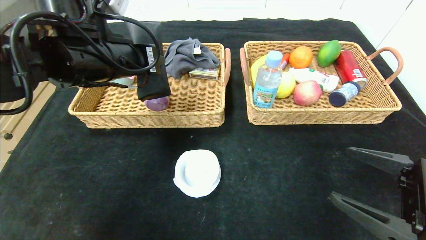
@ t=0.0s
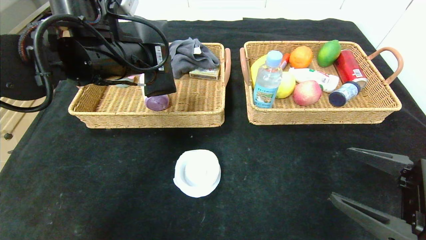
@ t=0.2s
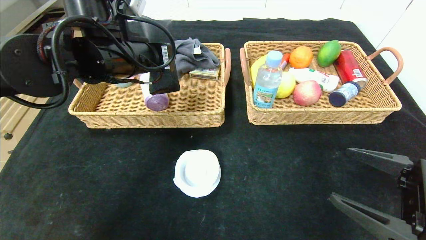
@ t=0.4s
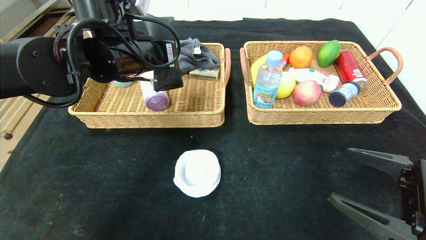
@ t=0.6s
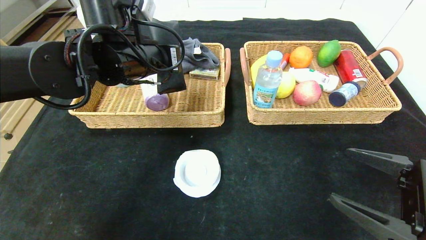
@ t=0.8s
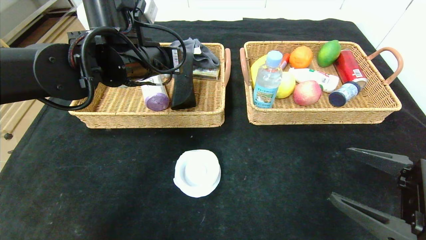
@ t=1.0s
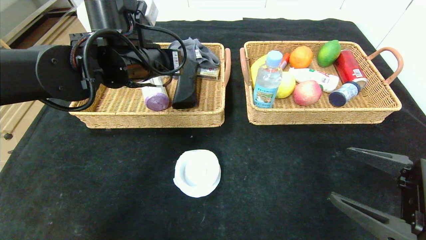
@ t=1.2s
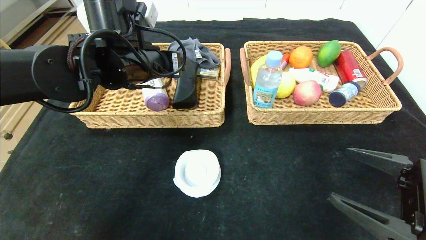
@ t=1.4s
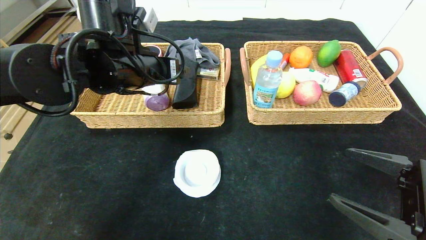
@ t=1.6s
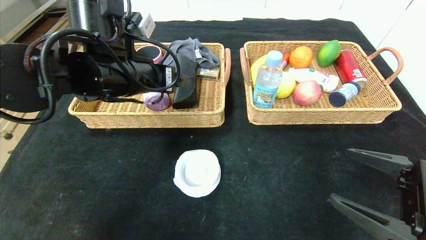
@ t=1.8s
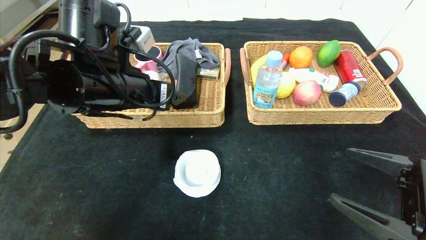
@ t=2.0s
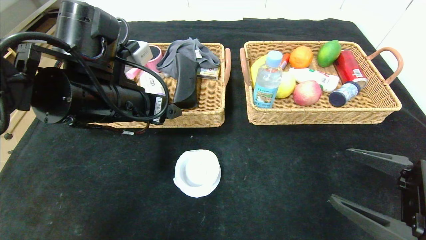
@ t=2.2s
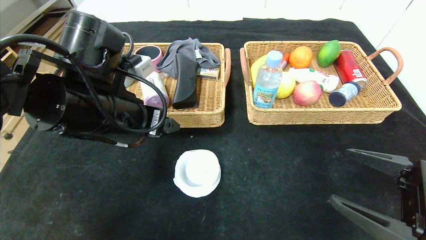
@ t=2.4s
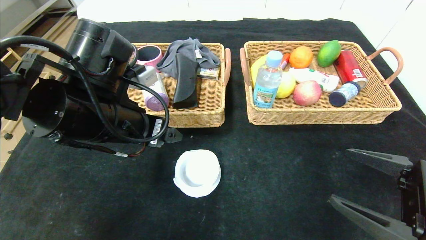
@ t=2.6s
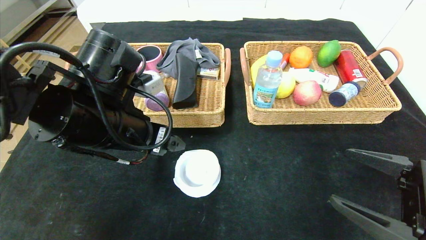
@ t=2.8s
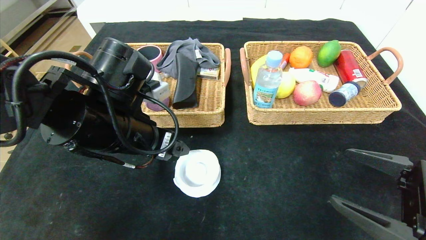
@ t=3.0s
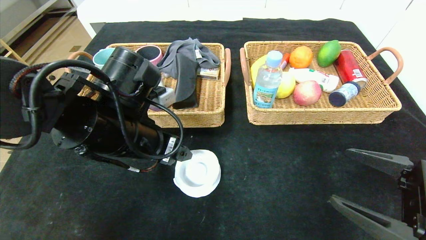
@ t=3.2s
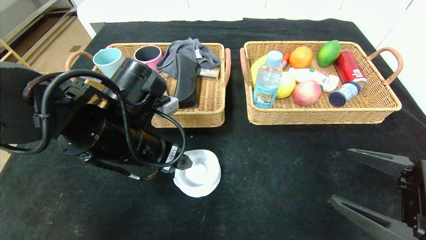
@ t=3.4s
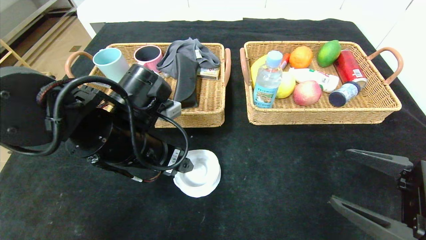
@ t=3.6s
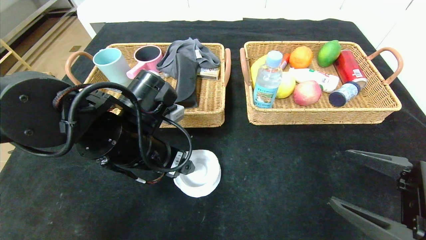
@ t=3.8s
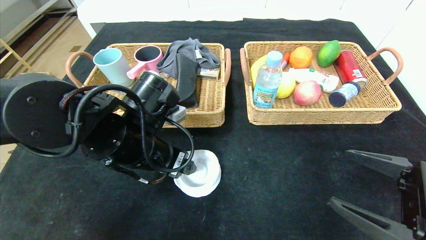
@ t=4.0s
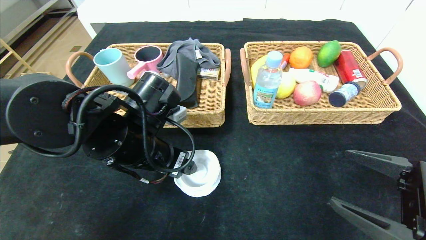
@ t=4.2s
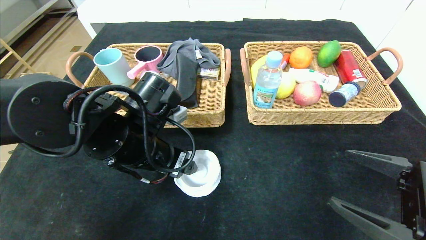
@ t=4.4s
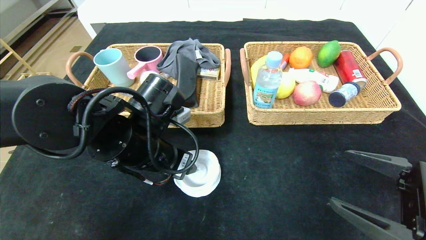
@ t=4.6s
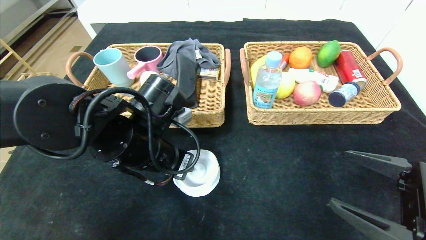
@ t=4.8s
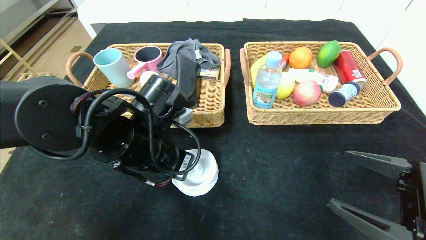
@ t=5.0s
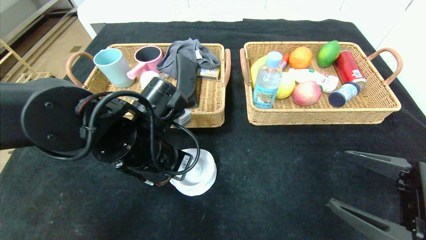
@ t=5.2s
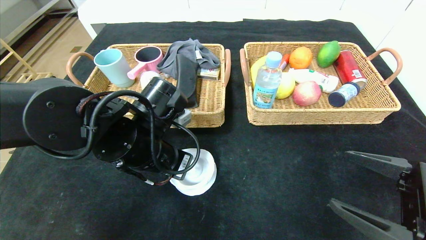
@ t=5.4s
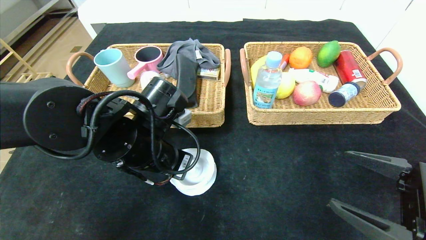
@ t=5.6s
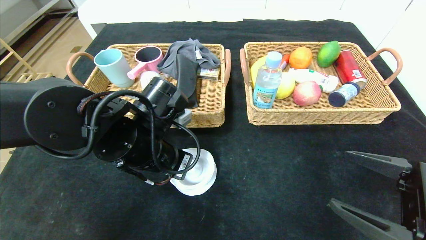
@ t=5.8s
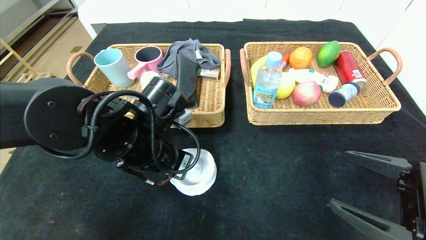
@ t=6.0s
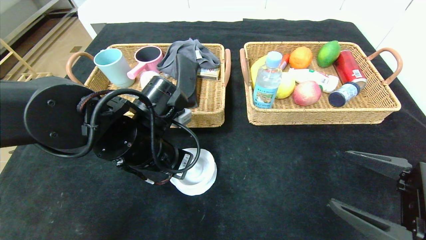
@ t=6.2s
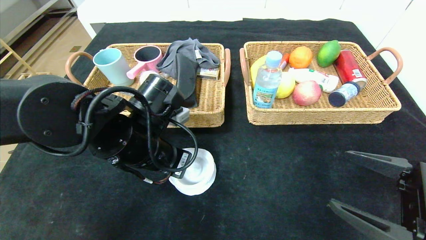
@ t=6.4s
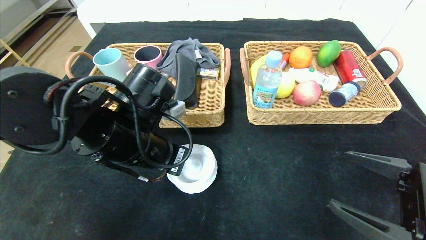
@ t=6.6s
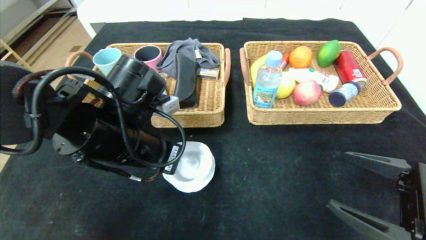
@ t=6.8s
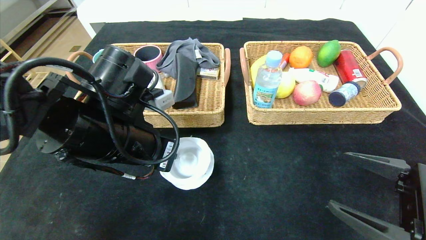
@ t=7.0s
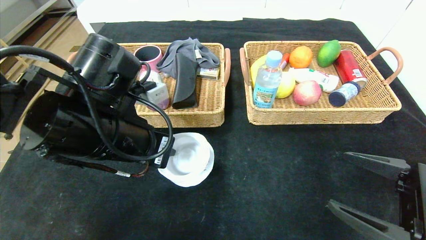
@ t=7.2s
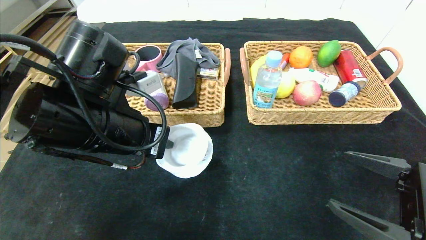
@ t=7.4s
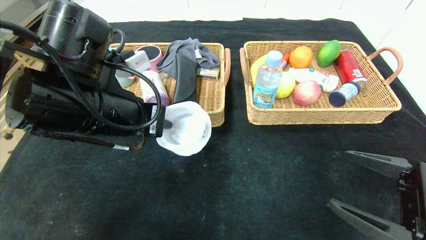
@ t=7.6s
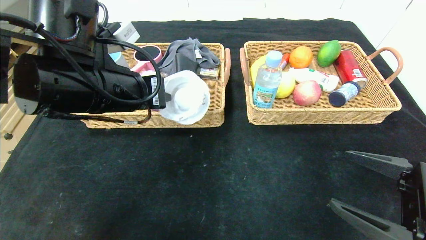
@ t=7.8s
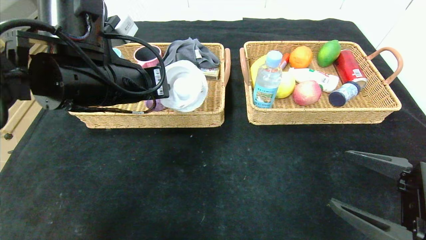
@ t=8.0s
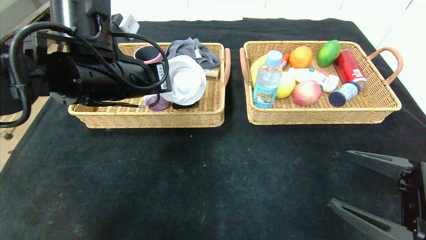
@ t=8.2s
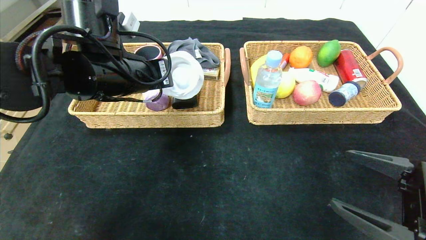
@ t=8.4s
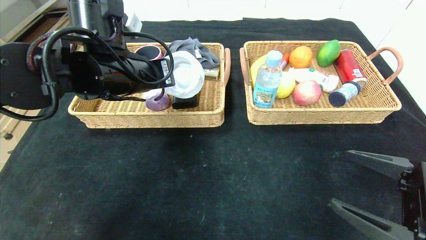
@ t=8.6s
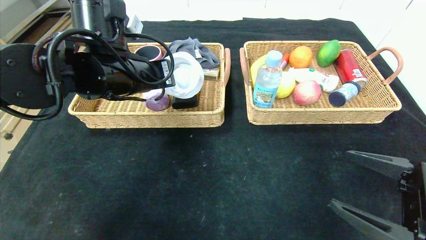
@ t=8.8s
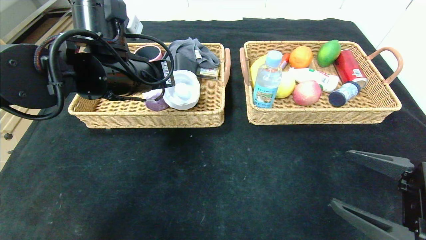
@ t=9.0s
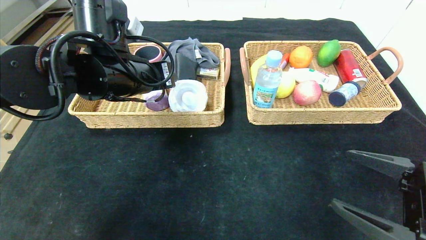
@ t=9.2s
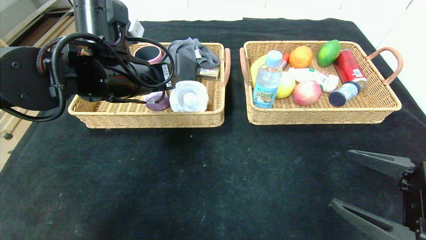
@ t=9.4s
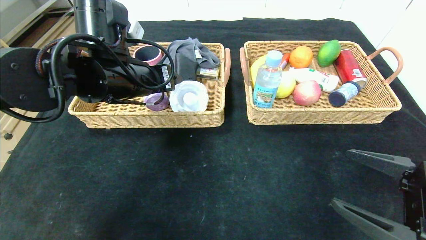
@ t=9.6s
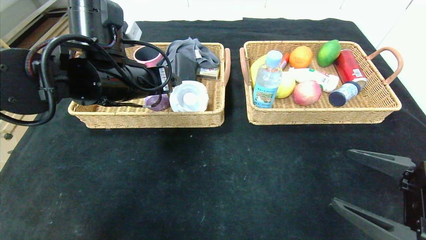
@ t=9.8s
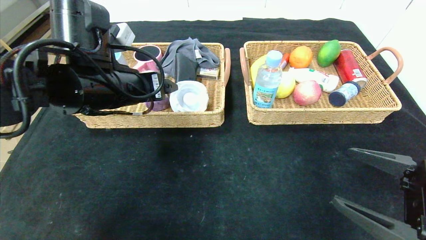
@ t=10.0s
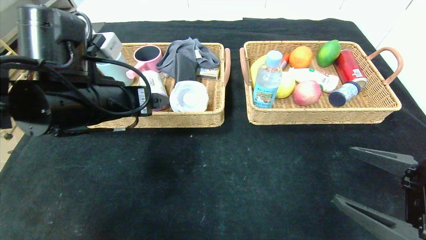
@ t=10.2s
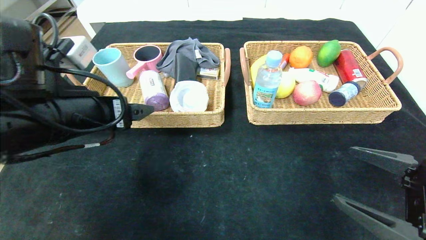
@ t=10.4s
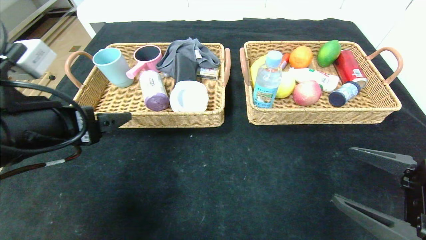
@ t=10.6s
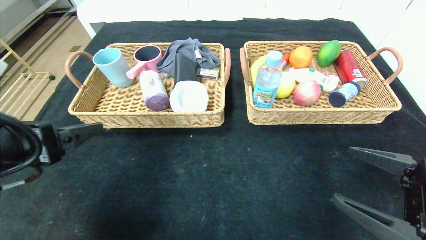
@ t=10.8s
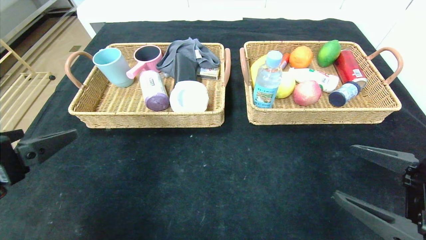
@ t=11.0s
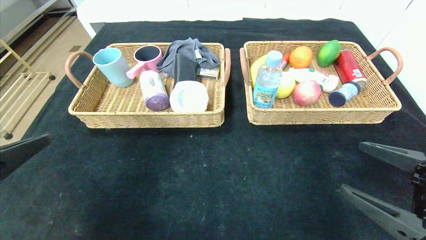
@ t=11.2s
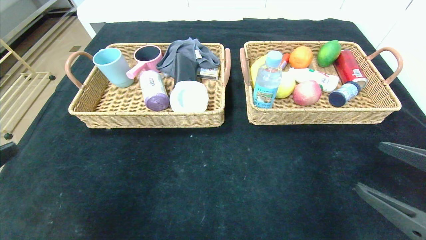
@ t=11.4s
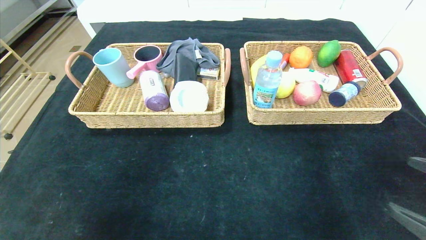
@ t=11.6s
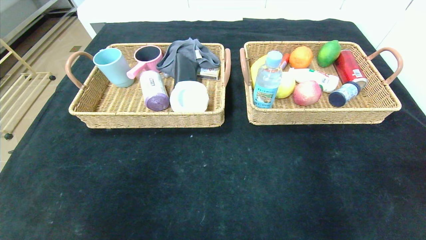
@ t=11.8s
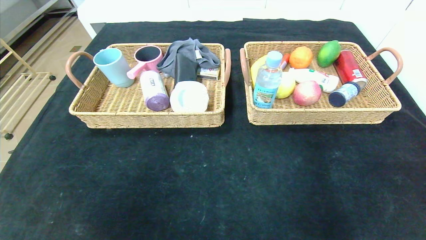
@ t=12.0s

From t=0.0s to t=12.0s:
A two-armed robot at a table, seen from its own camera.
Step, from t=2.0s to t=10.2s: Grasp the tape and put it in the left basket.
From t=0.0s to t=1.6s: The left gripper opens its fingers.
From t=1.6s to t=3.0s: The left gripper shifts about 10 cm backward and downward.
From t=3.0s to t=4.4s: The grippers move only a little.
From t=4.4s to t=6.0s: The left gripper closes its fingers.
From t=6.0s to t=7.6s: The left gripper shifts roughly 10 cm upward.
From t=7.6s to t=9.0s: The left gripper moves forward, roughly 10 cm.
From t=9.0s to t=10.4s: The left gripper travels backward by some 10 cm, and opens.
From t=10.4s to t=12.0s: The right gripper shifts some 15 cm backward and to the right. Meanwhile the left gripper goes approximately 30 cm backward.
